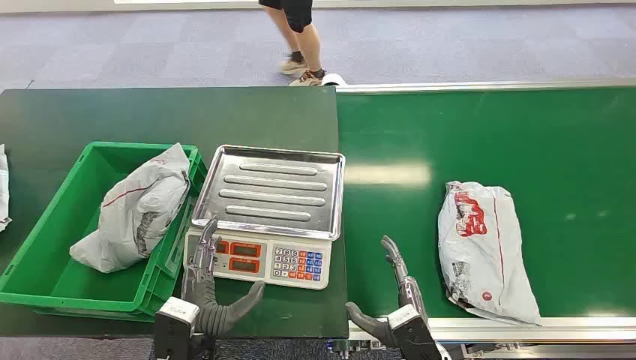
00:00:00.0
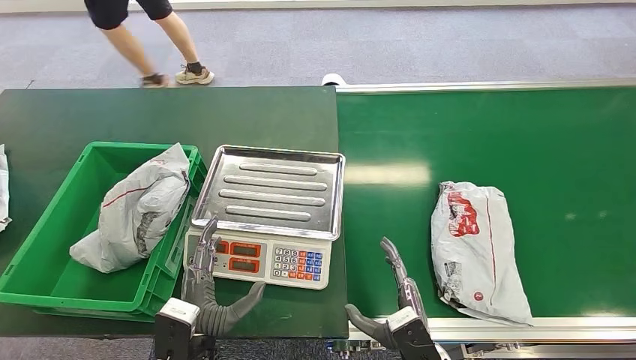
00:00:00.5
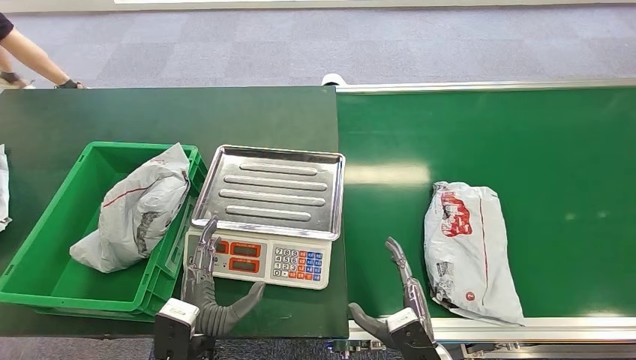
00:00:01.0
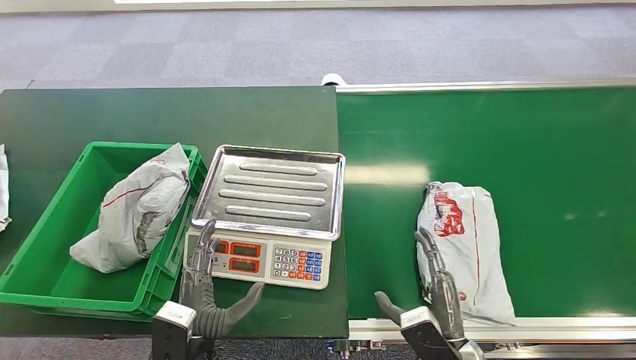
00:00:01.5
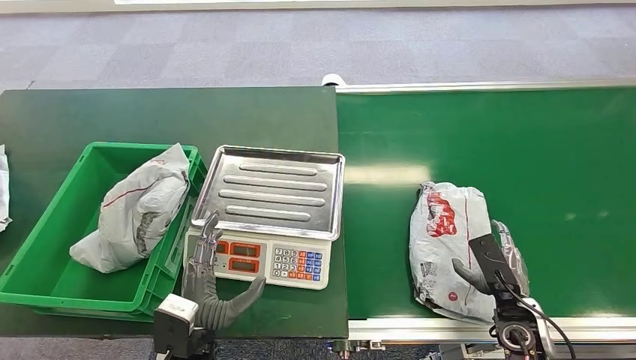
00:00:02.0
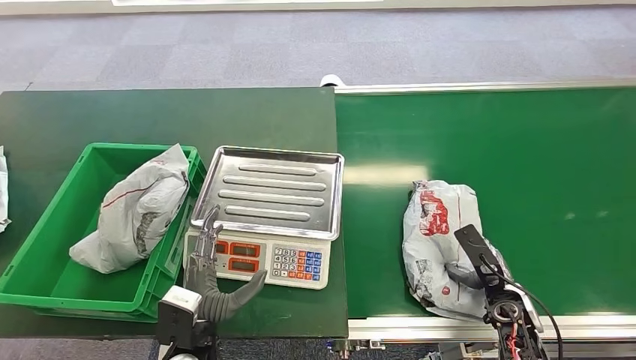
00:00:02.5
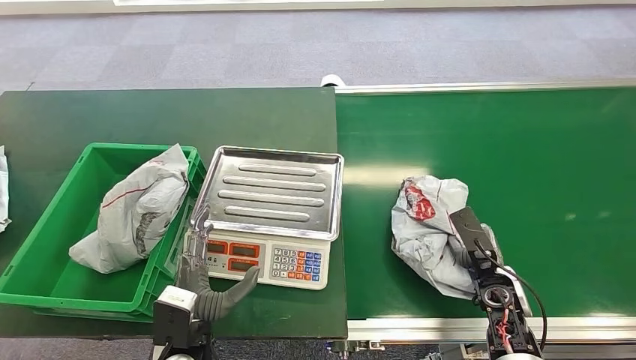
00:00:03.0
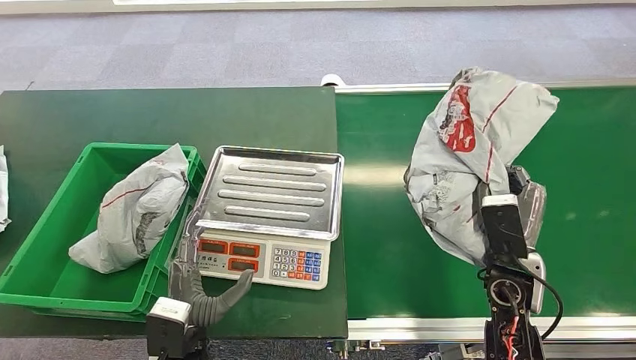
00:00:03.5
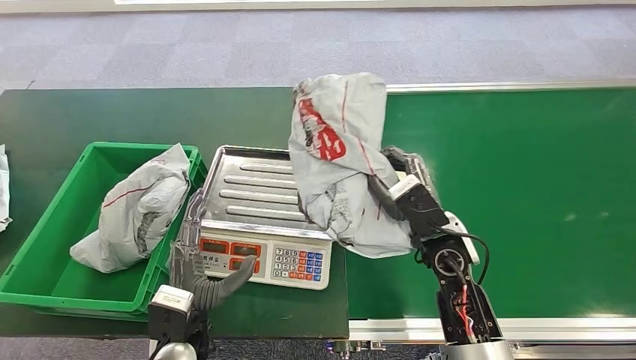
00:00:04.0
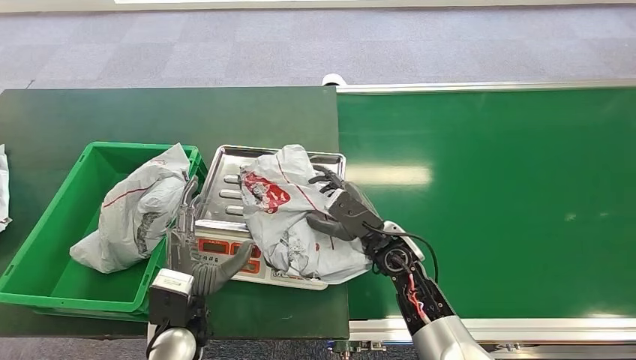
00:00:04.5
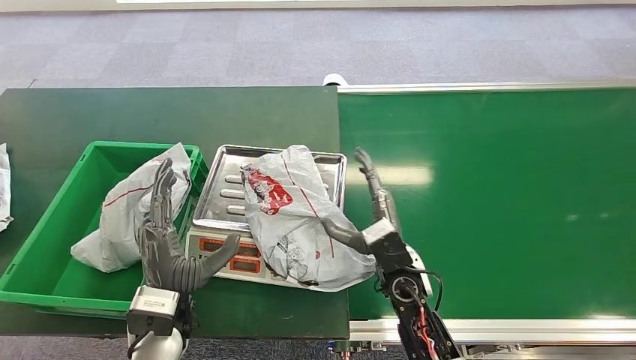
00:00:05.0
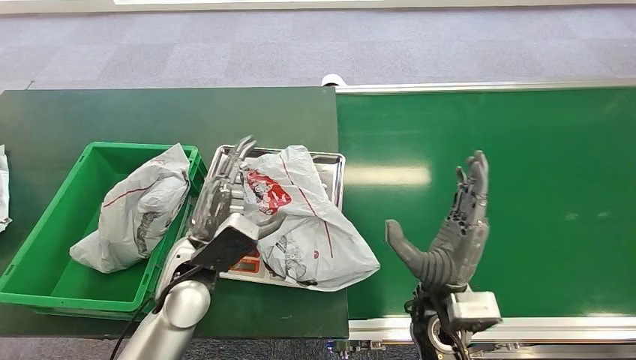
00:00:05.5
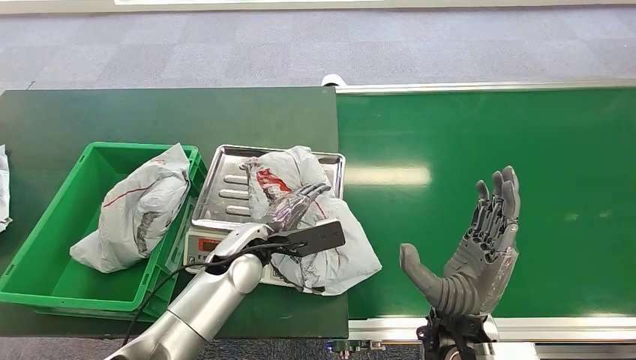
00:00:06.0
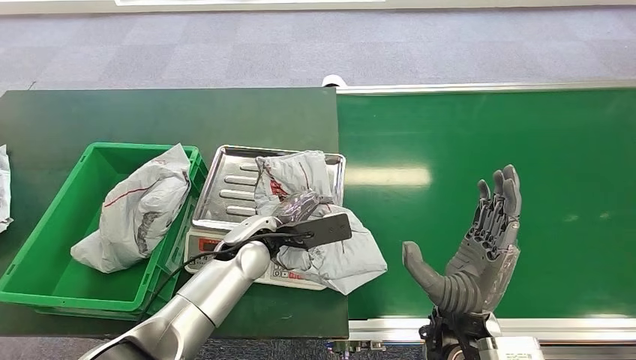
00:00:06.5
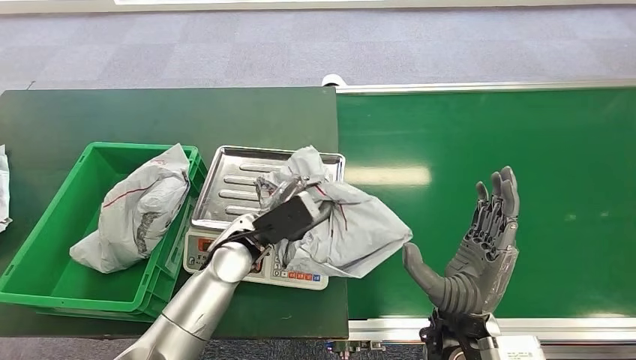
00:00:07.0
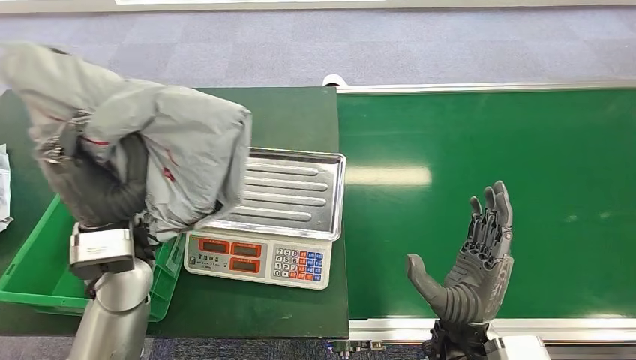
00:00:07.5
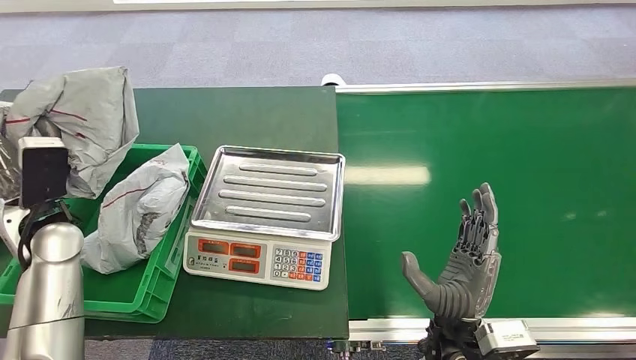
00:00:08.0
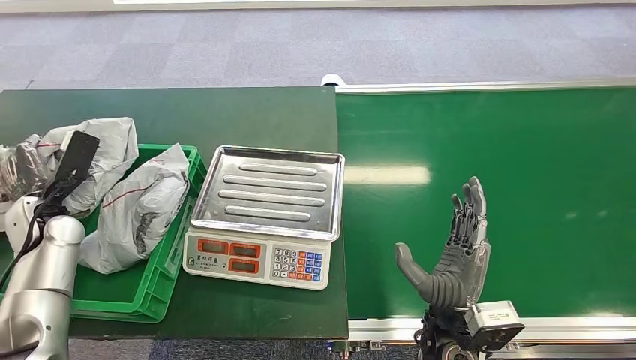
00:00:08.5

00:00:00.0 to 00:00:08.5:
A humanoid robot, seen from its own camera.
Step, 00:00:00.0 to 00:00:03.5: Pick up the package from the conveyor belt.
Step, 00:00:04.5 to 00:00:05.5: Place the package onto the inbound machine.
Step, 00:00:06.0 to 00:00:07.0: Pick up the package from the inbound machine.
Step, 00:00:07.5 to 00:00:08.5: Place the package into the parcel locker.
00:00:02.0 to 00:00:04.0: The right hand heads to the left, upward and forward, covering approximately 20 cm.
